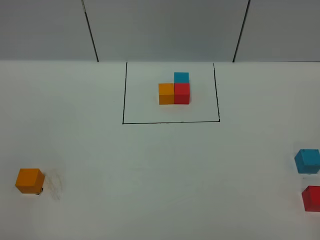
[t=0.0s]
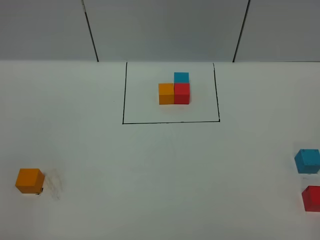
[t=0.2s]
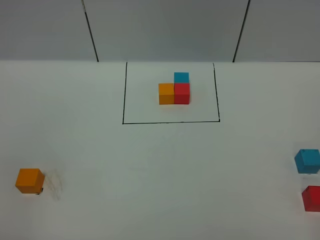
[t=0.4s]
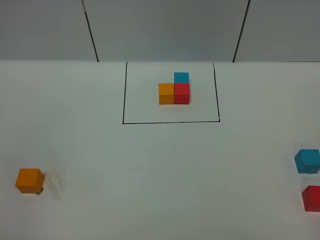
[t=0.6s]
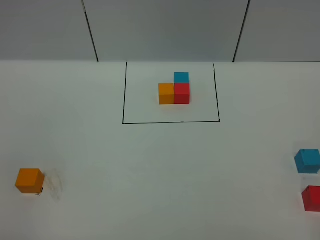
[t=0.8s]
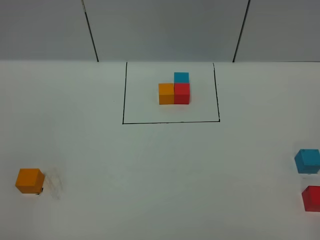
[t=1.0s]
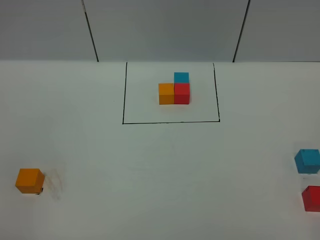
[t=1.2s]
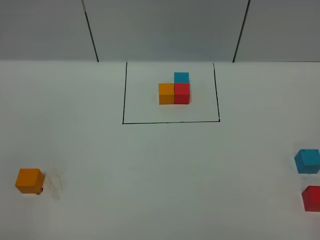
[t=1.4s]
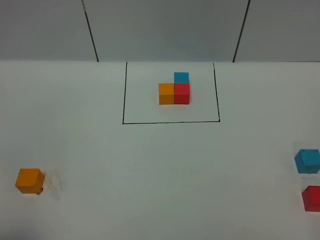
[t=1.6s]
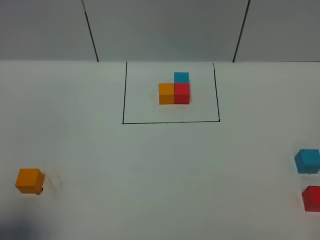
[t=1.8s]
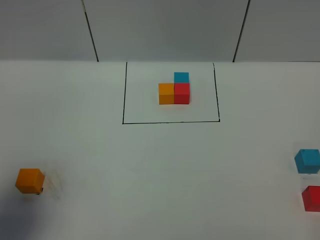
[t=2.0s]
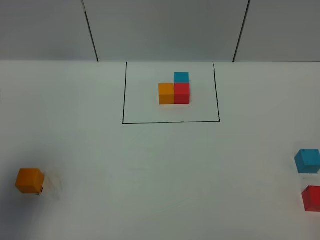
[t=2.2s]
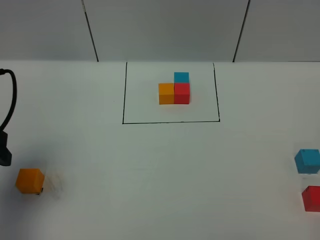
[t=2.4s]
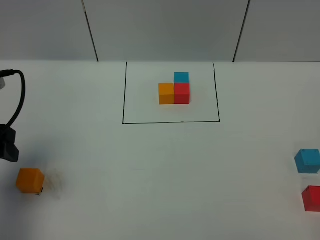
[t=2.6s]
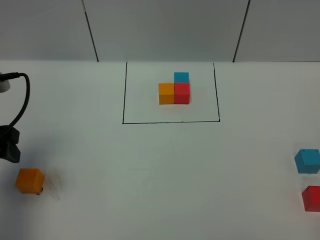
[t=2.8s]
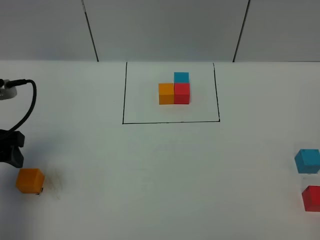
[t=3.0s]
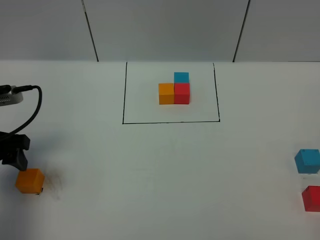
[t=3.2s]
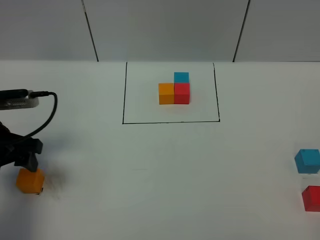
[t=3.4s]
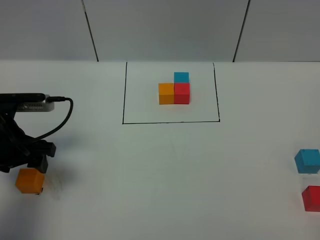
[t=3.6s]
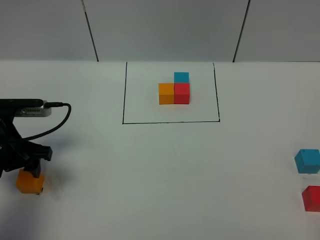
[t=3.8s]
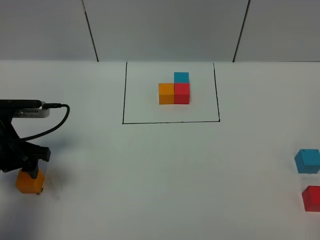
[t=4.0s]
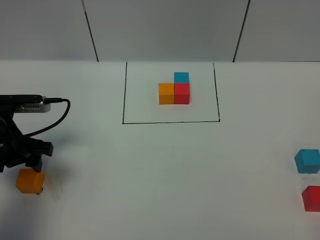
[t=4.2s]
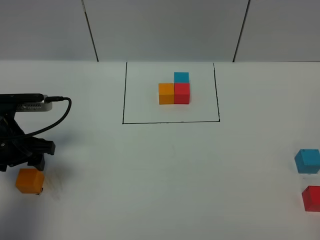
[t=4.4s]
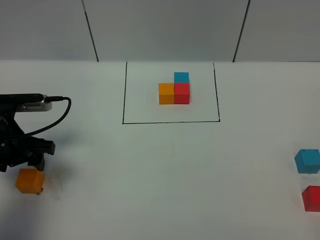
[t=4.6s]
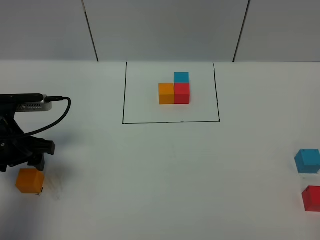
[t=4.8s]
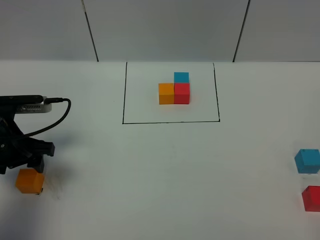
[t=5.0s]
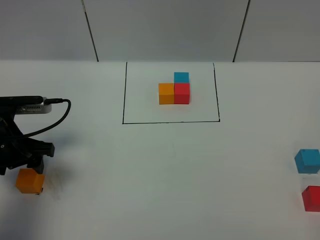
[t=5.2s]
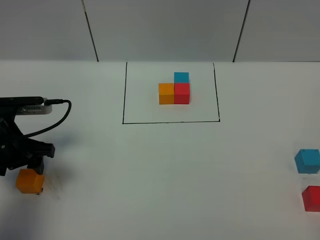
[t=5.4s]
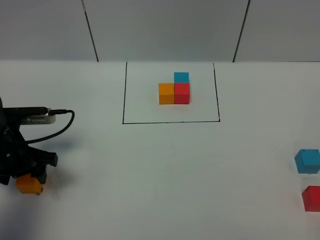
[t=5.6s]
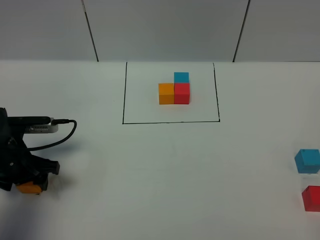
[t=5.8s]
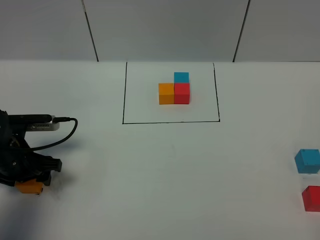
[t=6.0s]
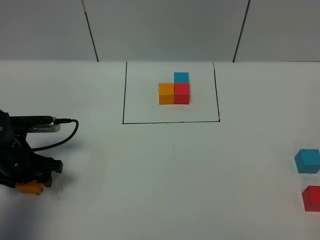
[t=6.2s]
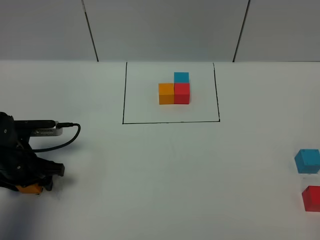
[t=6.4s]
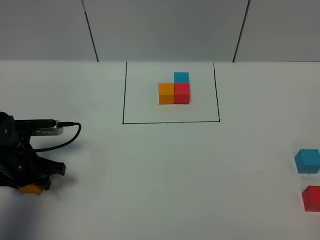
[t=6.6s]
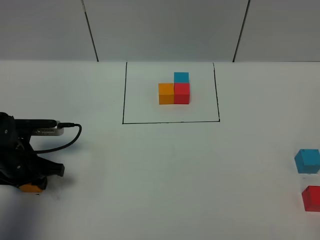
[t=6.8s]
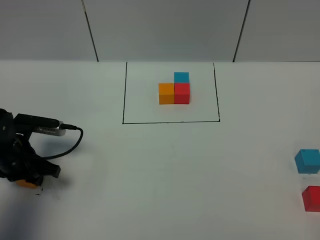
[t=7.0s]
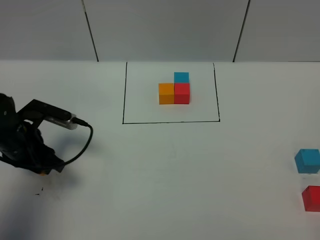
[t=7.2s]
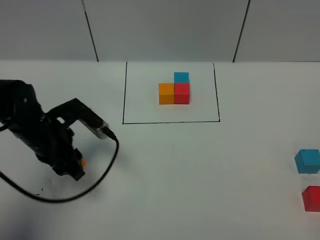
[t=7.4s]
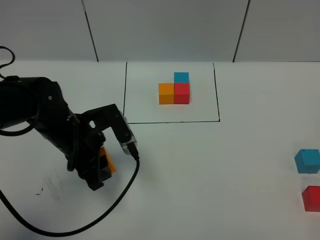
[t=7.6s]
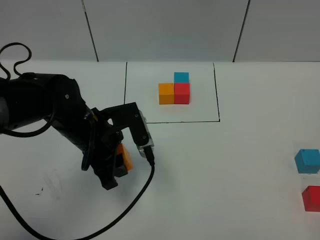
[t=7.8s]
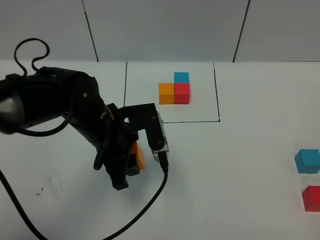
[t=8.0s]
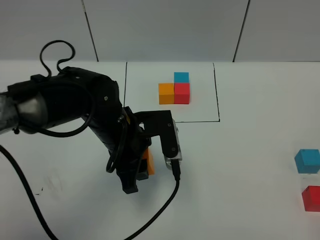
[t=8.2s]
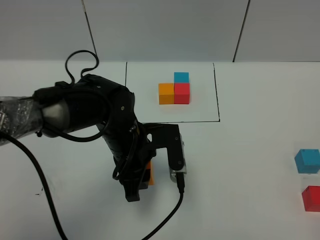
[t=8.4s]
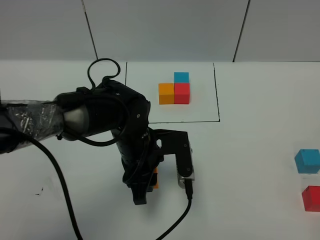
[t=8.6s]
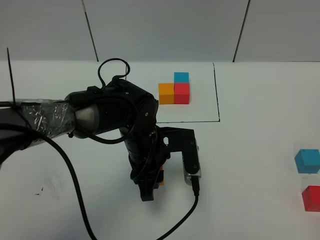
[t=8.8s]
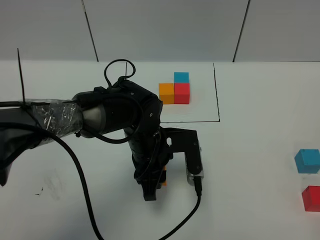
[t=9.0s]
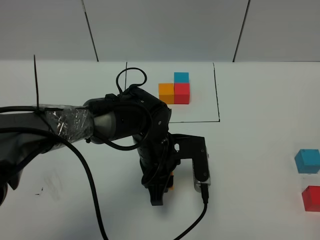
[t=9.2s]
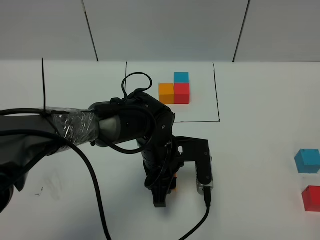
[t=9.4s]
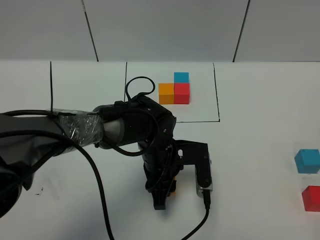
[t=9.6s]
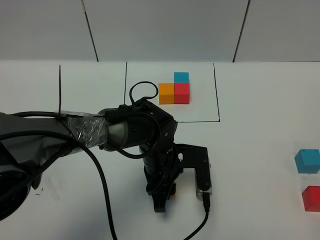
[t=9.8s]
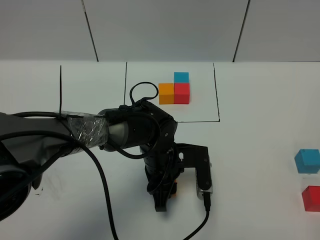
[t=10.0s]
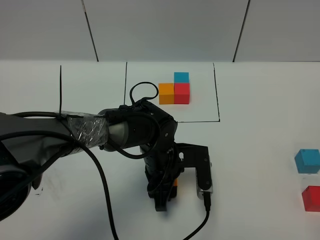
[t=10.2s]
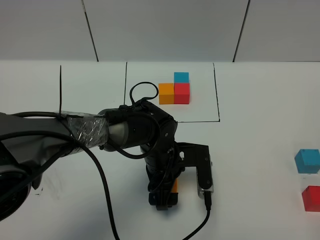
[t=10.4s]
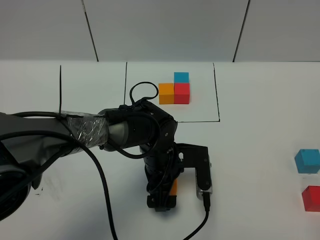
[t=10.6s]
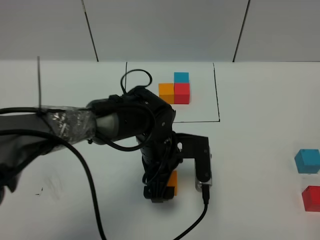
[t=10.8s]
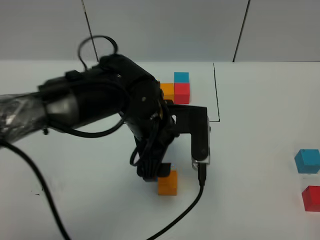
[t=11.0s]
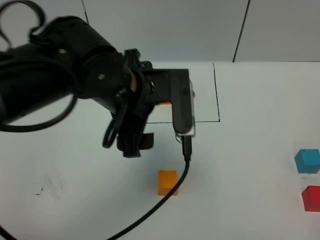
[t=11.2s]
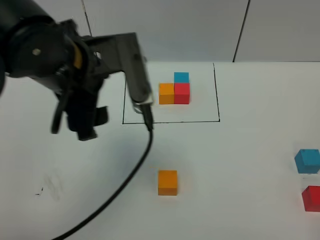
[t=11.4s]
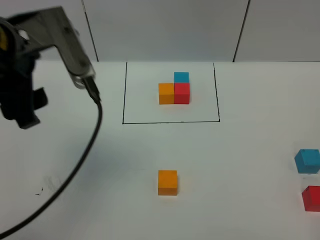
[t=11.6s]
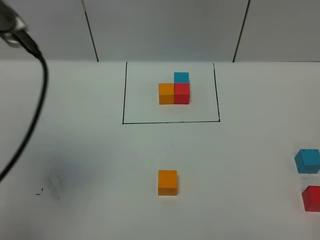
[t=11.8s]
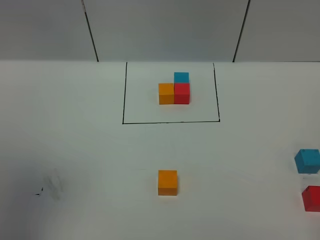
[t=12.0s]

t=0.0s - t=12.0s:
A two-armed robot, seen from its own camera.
Task of the whole recording: According to the building block template in front, assemble the scattered blocks together.
Step, t=2.2s - t=9.0s: Put the orange cube in the center of the table.
t=1.6s - t=3.0s: The left gripper is displaced forward by some 20 cm.
t=3.0s - t=4.4s: The left gripper is displaced downward by some 5 cm.
t=4.4s - t=6.0s: The left gripper heads downward, covering about 5 cm.
t=6.0s - t=7.6s: The left gripper travels to the right by some 10 cm, and closes up.
t=7.6s - t=9.0s: The left gripper shifts about 15 cm to the right.
t=9.0s - t=10.4s: The left gripper opens.
t=10.4s - t=12.0s: The left gripper moves upward, to the left and backward, approximately 50 cm, and closes up.

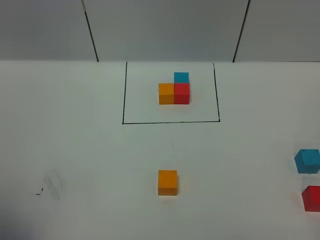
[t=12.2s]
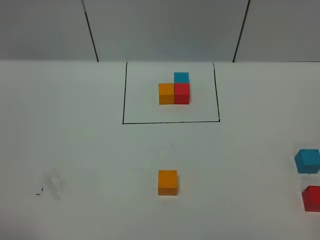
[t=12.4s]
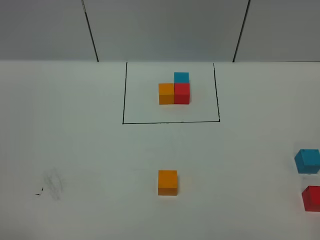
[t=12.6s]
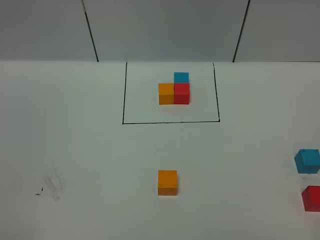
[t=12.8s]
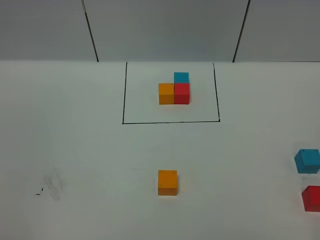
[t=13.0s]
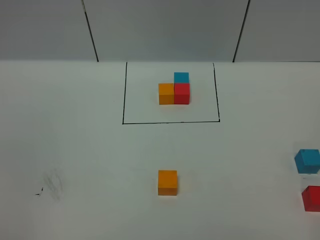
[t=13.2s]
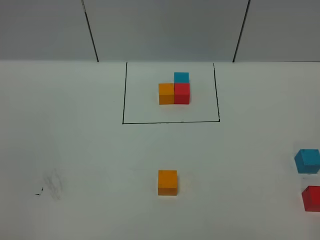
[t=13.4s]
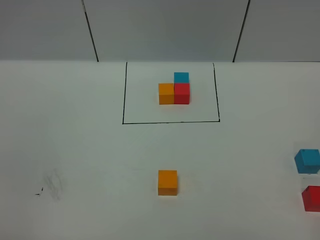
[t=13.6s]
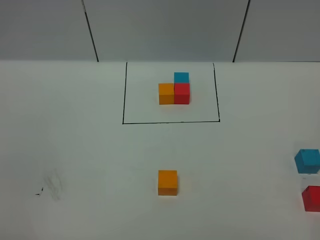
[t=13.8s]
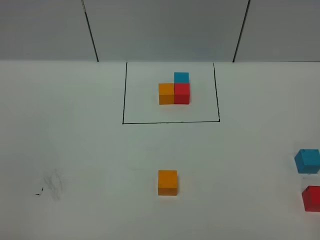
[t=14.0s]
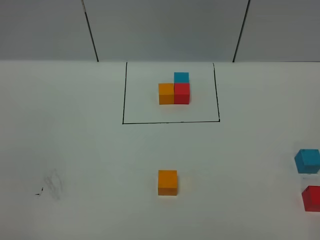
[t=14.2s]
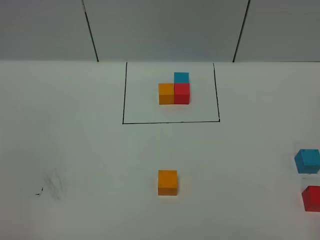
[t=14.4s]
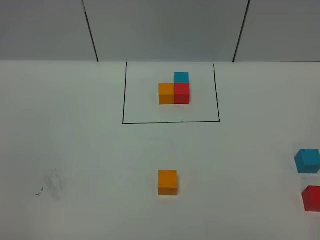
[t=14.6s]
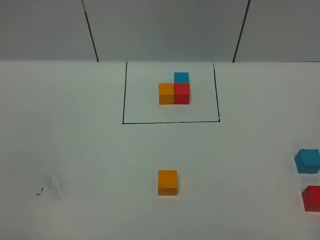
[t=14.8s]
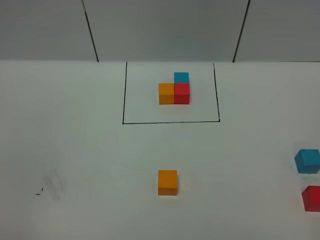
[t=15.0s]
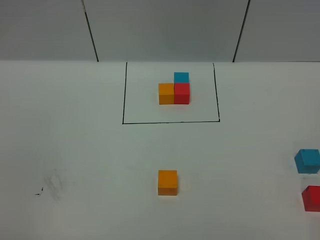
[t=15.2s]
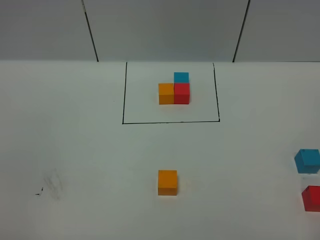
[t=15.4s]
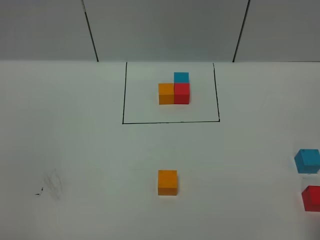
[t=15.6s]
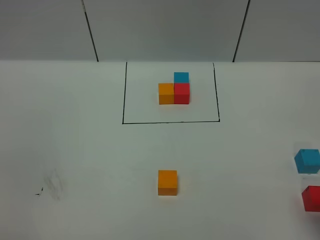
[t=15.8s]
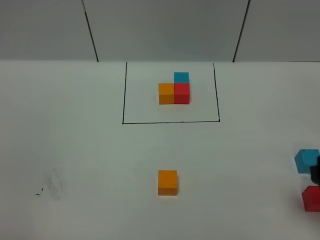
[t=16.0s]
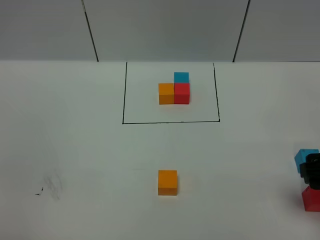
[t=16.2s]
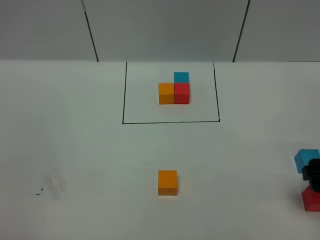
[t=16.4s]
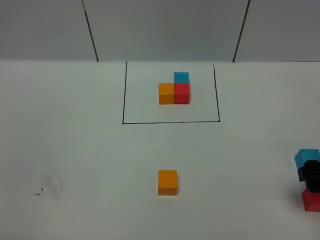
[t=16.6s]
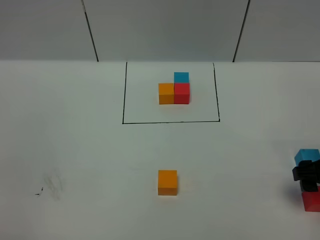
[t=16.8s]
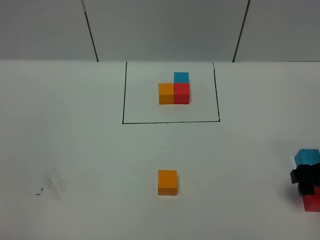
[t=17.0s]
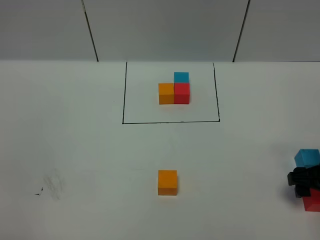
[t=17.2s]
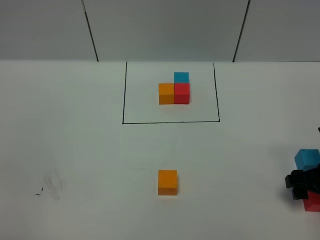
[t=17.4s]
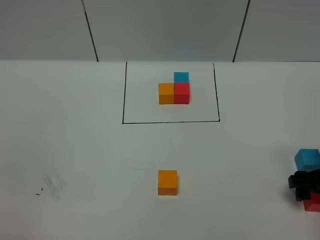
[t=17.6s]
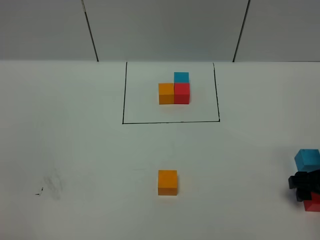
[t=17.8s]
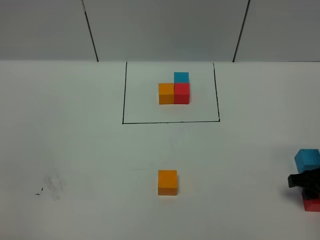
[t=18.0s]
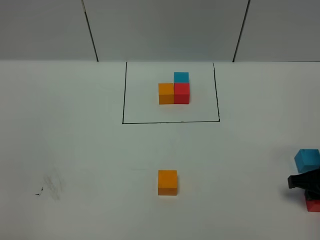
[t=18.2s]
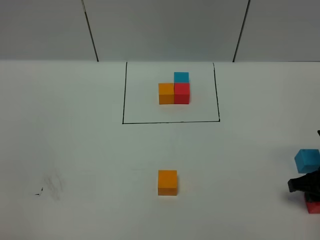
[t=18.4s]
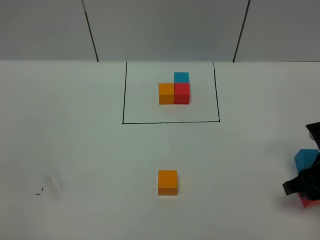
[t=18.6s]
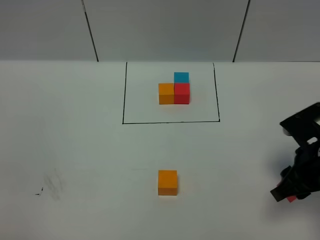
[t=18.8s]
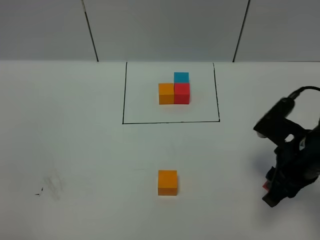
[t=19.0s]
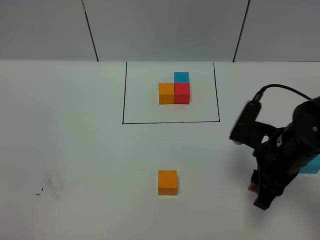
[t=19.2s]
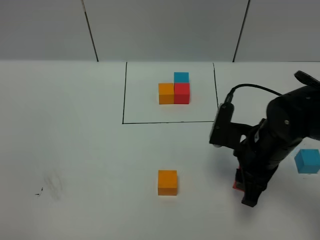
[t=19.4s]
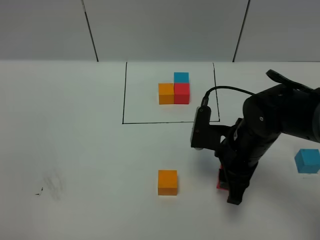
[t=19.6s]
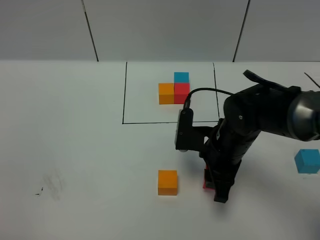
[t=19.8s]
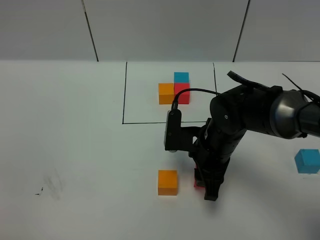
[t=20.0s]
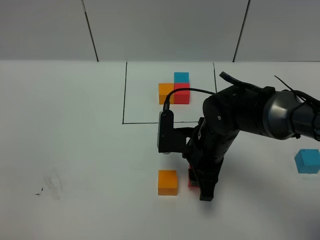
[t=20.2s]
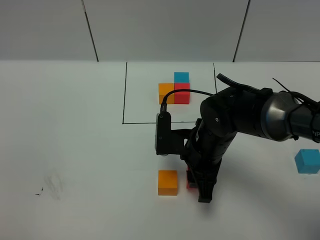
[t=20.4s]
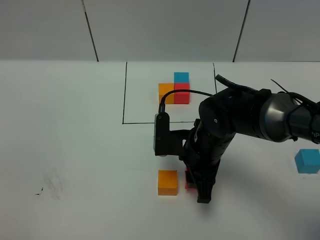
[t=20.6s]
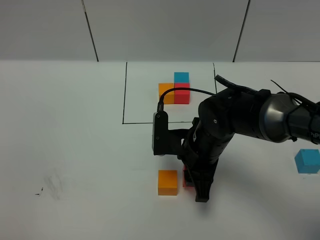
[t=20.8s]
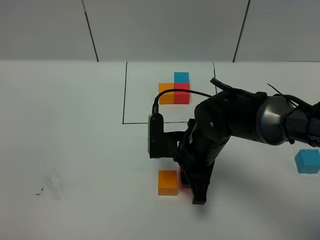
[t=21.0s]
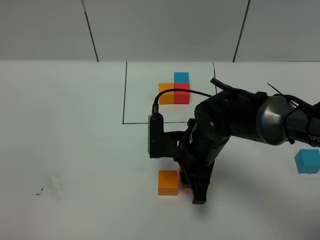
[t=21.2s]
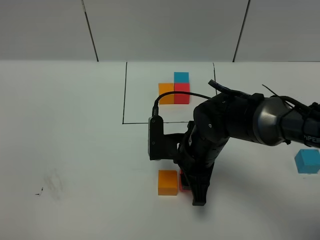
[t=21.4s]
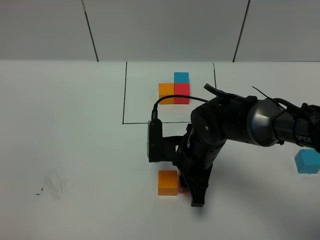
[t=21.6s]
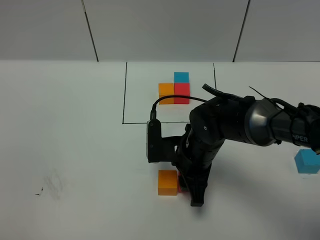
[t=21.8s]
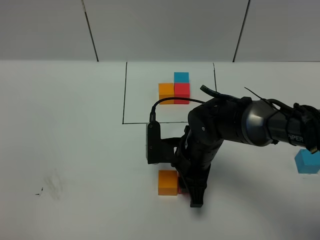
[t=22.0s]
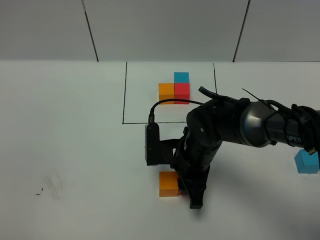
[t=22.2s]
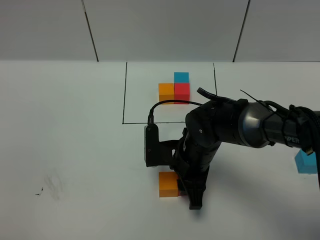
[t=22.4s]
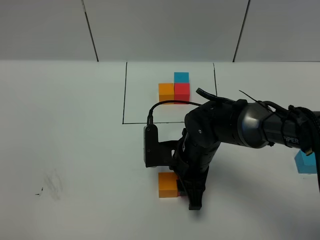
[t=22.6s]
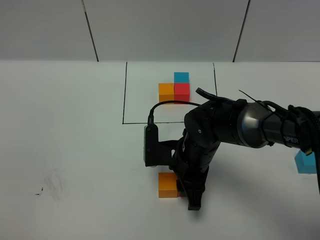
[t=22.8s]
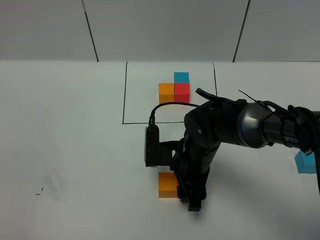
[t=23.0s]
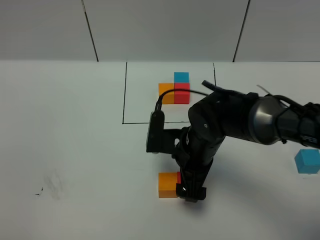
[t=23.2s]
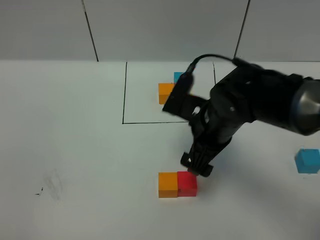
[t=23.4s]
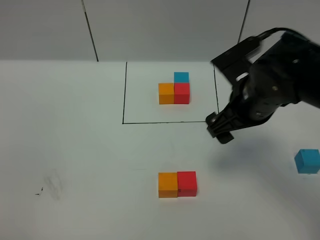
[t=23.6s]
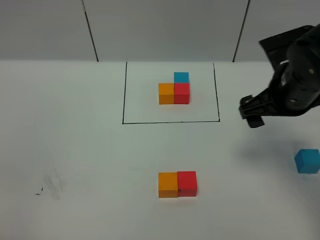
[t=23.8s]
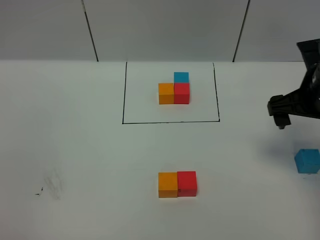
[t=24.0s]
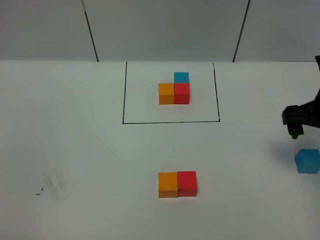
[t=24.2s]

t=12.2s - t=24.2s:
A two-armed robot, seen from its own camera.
Task of the whole recording: According to the building block template in front, assemble the scattered blocks together.
Step, t=12.2s - t=24.0s: Put the red cube on the right of the orange cube.
t=12.2s - t=13.8s: The left gripper moves downward, about 20 cm.
t=15.2s - t=16.6s: The right gripper travels forward by roughly 20 cm, and opens up.
t=16.6s - t=18.2s: The right gripper shifts roughly 5 cm downward, and closes.
t=18.2s - t=19.8s: The right gripper shifts about 20 cm to the left.
t=19.8s - t=22.6s: The grippers stay close to where they were, moving slightly.
t=22.6s - t=24.2s: The right gripper travels to the right and upward by approximately 25 cm, and opens its fingers.
